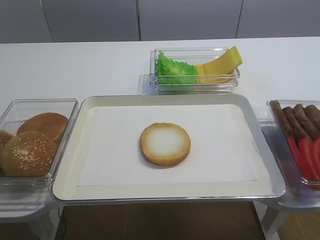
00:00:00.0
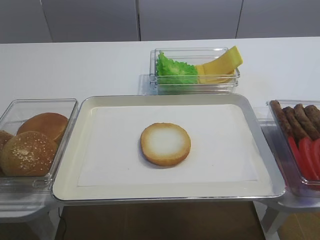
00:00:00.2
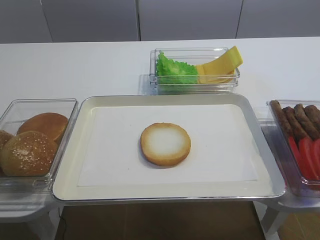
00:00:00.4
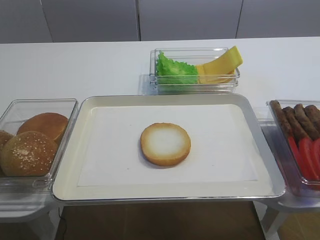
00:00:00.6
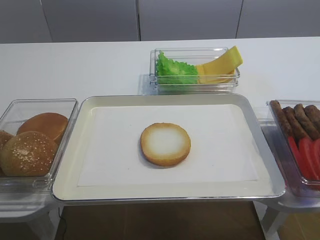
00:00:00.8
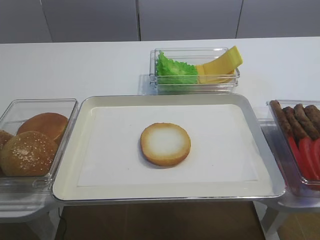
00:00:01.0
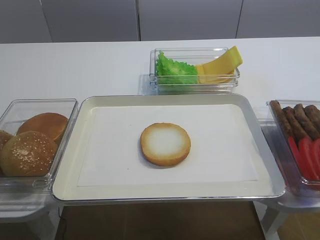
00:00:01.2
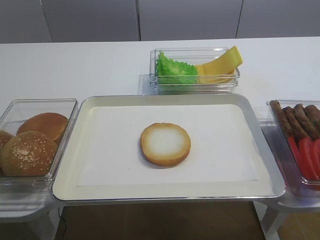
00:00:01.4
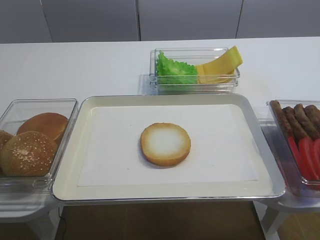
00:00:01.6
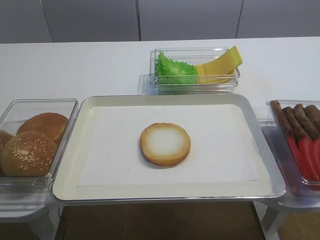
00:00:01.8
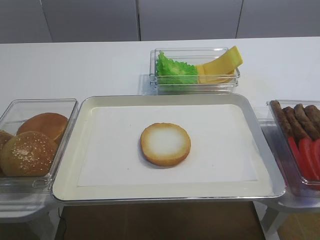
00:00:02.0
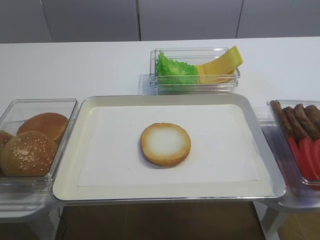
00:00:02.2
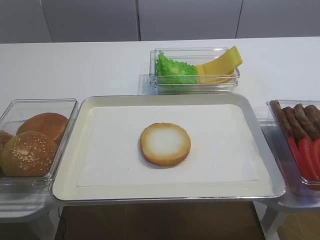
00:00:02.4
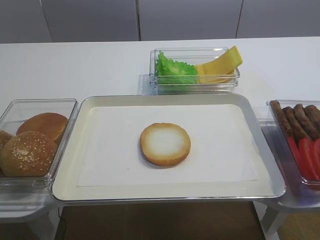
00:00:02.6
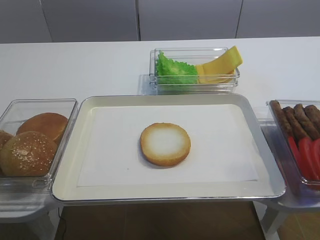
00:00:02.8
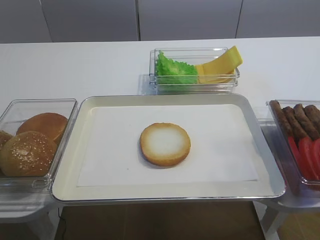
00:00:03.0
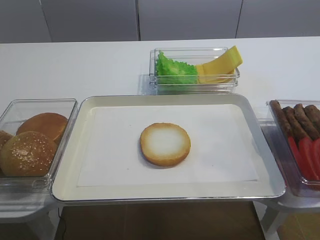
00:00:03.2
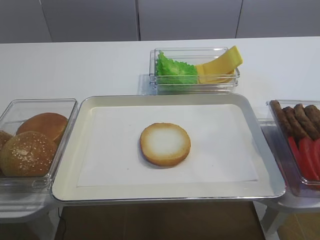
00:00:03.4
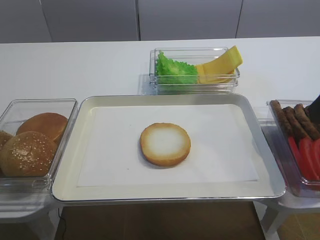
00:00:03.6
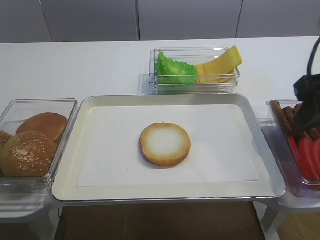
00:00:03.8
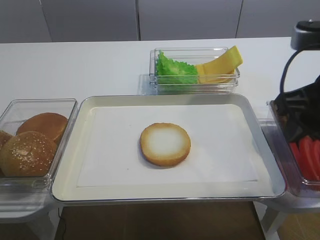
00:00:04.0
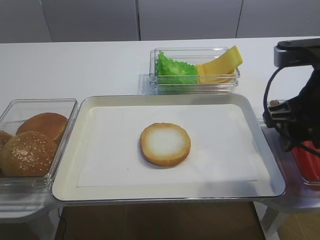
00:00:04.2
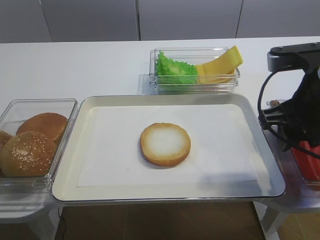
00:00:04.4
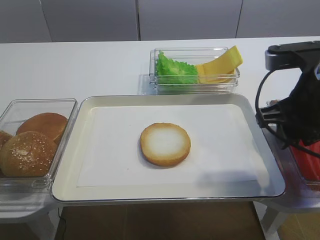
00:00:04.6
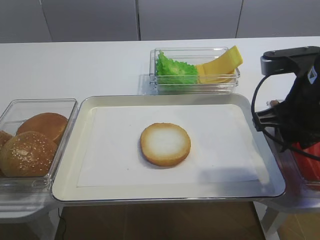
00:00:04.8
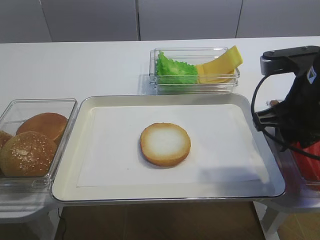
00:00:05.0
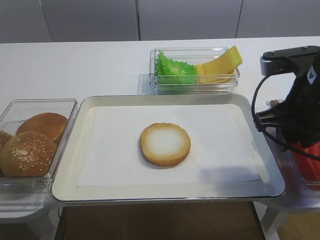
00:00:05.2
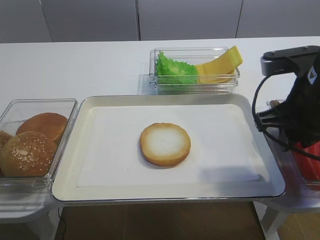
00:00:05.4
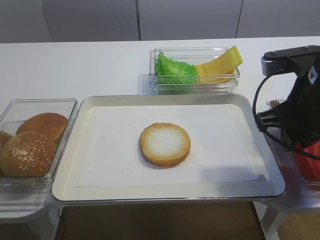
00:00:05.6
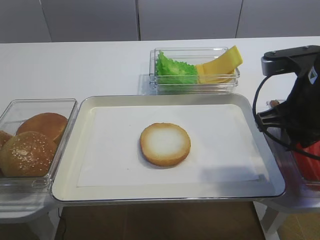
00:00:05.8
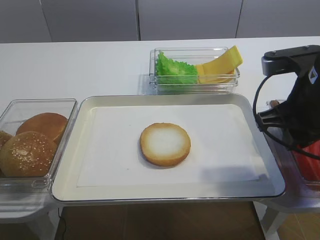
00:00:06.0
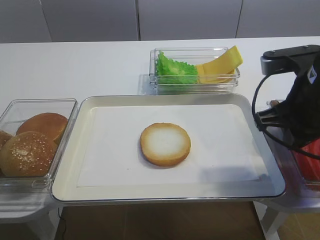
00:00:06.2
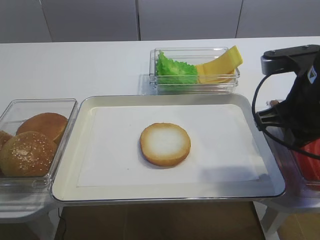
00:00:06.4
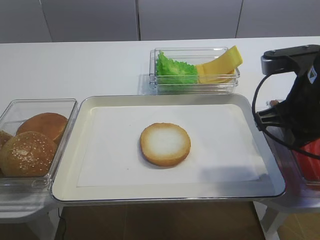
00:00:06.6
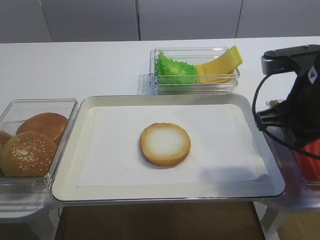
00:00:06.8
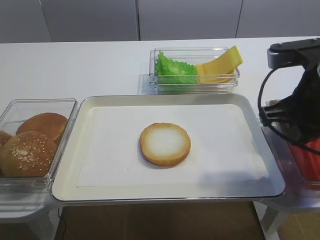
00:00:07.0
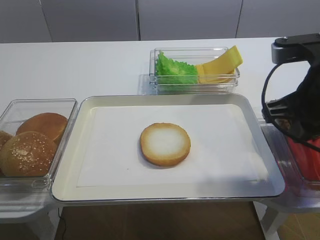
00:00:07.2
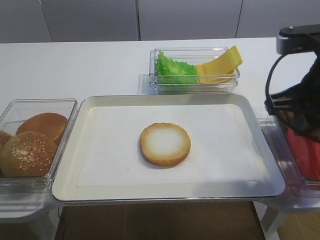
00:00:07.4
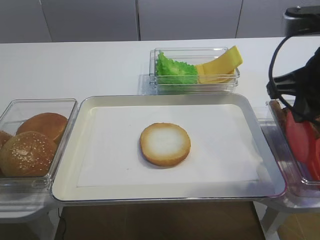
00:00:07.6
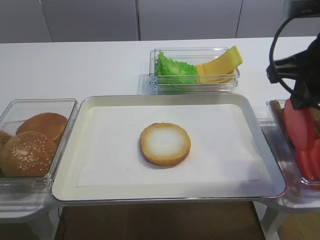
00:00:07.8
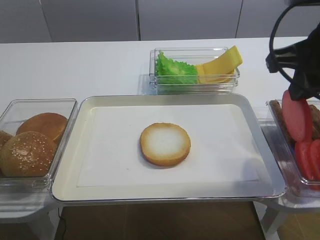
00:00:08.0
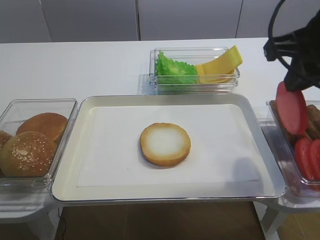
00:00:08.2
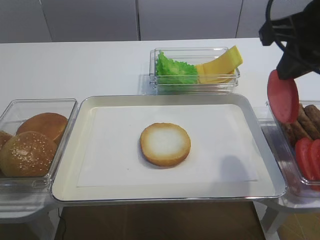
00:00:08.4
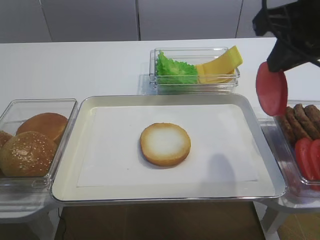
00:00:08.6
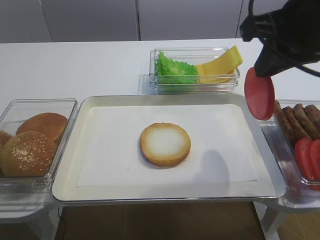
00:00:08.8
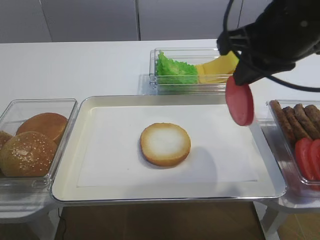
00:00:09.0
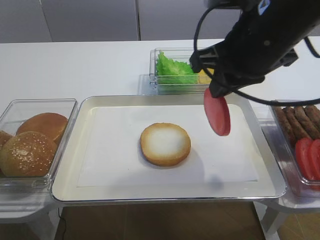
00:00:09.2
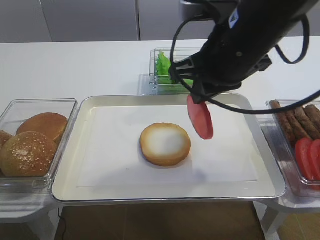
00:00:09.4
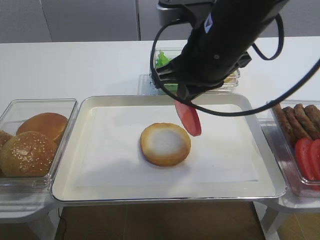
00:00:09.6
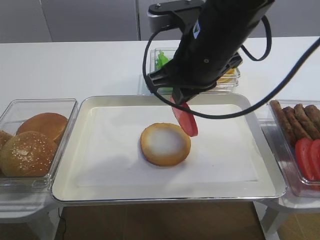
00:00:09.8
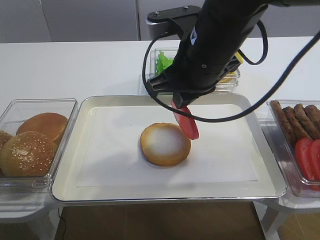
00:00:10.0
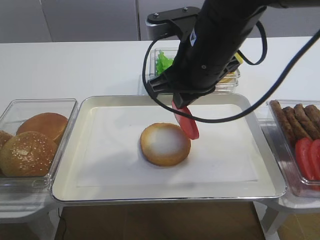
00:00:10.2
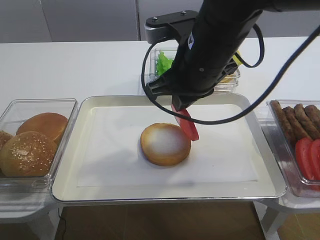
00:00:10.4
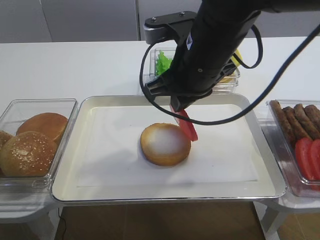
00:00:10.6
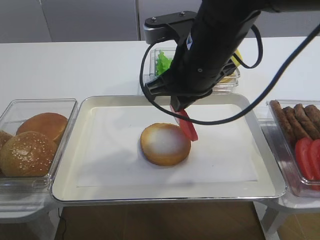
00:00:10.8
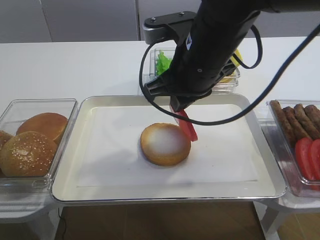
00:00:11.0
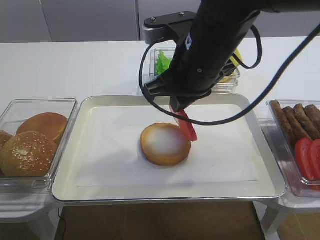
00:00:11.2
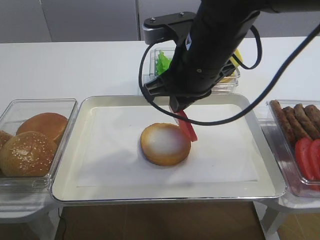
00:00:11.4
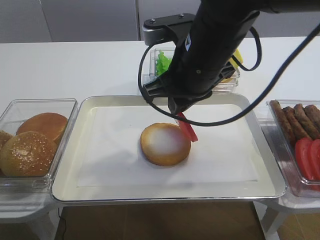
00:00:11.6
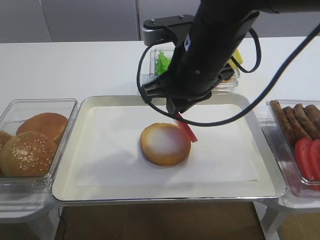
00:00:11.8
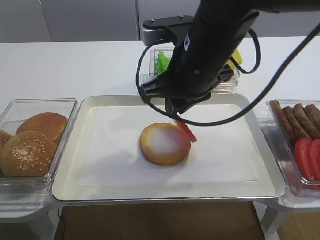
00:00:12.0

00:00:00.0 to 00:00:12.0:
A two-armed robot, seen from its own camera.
Step, 00:00:00.0 to 00:00:07.6: Pick up the tomato slice with the right gripper.
00:00:03.0 to 00:00:04.4: The right gripper travels forward, downward and to the left by about 20 cm.
00:00:04.4 to 00:00:06.0: The right gripper closes.
00:00:06.0 to 00:00:07.6: The right gripper moves upward, some 5 cm.
00:00:07.6 to 00:00:09.0: The right gripper travels to the left by some 5 cm.
00:00:09.0 to 00:00:10.4: The right gripper shifts roughly 10 cm to the left and downward.
00:00:10.4 to 00:00:12.0: The two grippers keep their place.

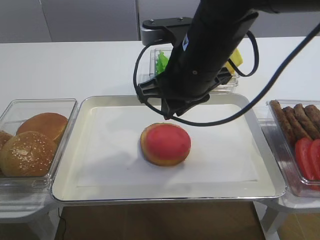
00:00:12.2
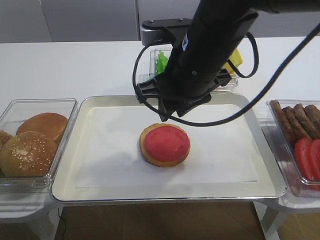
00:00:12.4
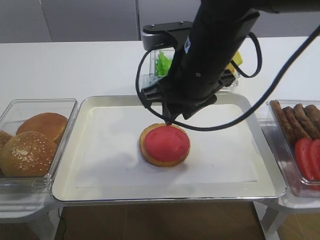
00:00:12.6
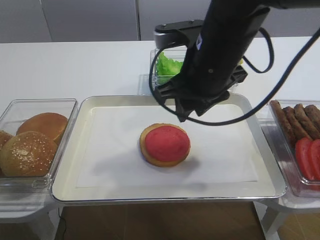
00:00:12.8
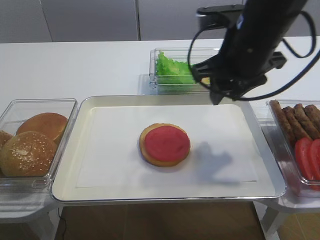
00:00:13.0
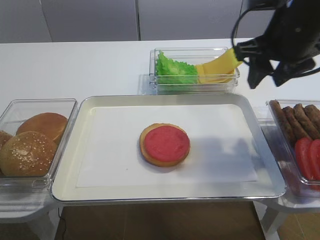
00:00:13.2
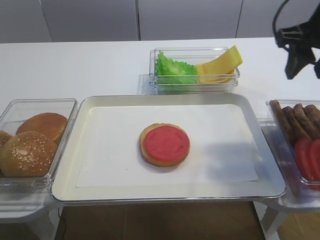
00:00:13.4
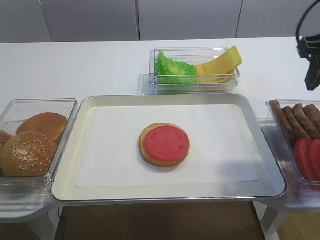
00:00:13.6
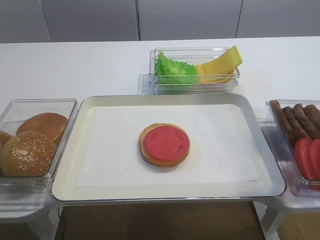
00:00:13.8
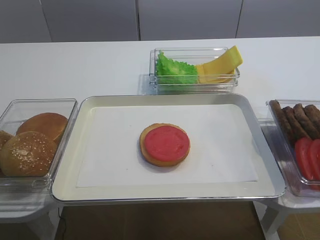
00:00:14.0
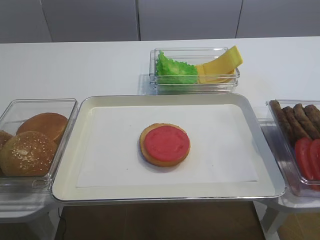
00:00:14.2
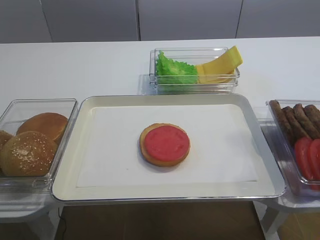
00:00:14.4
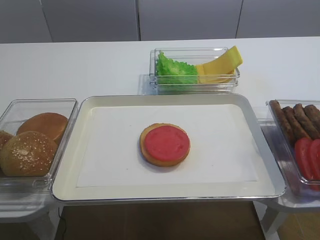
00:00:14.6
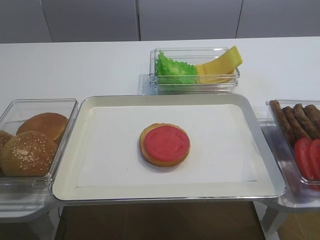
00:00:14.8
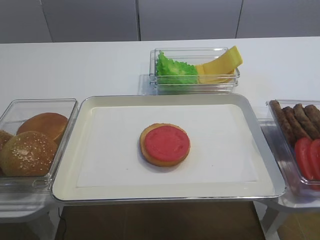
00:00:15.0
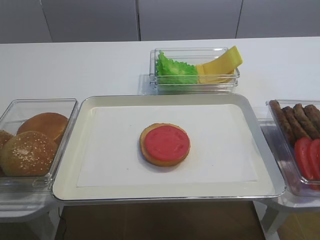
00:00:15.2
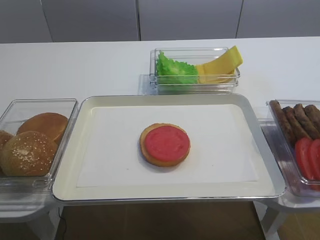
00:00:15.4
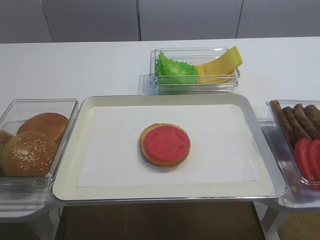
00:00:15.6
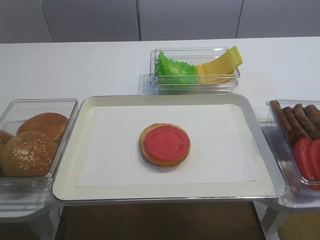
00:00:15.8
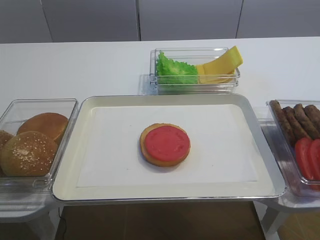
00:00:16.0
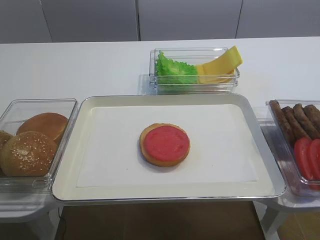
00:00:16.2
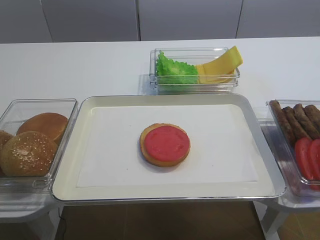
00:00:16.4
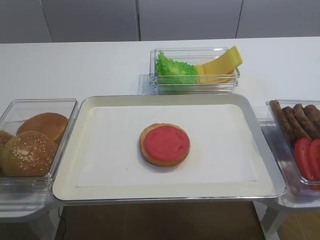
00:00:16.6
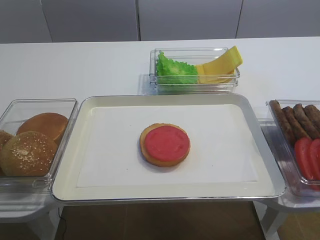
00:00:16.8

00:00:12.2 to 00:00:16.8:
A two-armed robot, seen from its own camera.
00:00:12.2 to 00:00:13.8: The right gripper is displaced to the right by about 20 cm, and opens up.
00:00:13.8 to 00:00:15.2: The right gripper goes about 25 cm backward.
00:00:15.2 to 00:00:16.8: Neither gripper changes place.

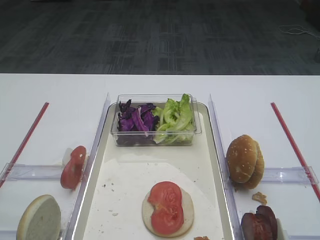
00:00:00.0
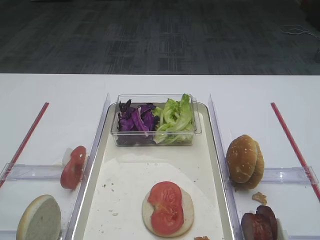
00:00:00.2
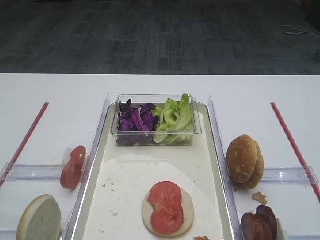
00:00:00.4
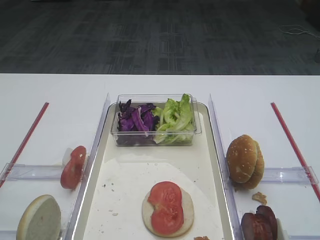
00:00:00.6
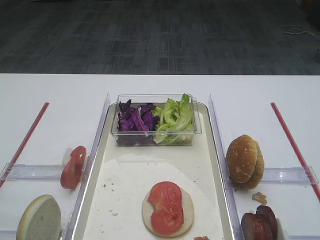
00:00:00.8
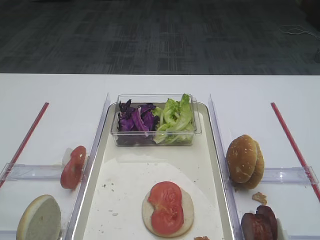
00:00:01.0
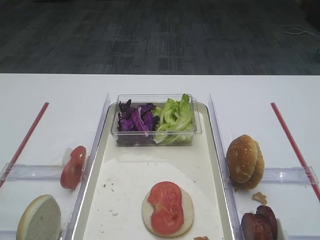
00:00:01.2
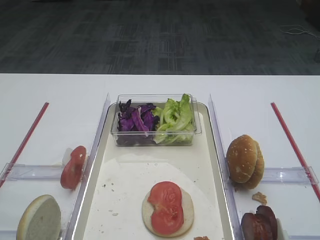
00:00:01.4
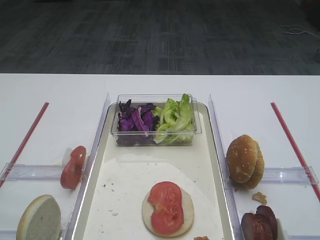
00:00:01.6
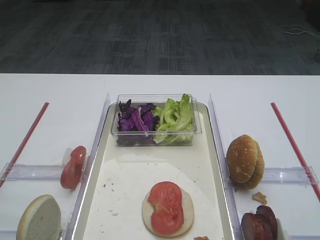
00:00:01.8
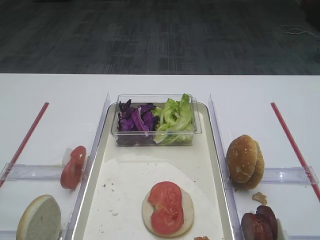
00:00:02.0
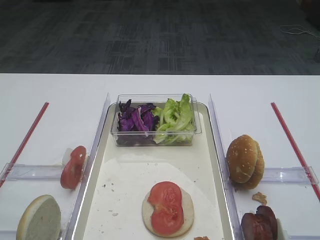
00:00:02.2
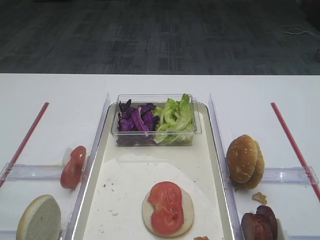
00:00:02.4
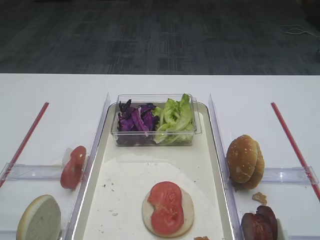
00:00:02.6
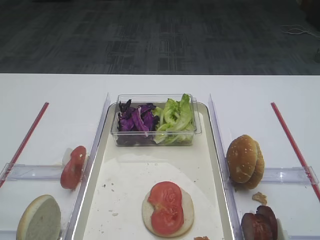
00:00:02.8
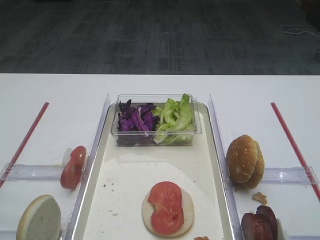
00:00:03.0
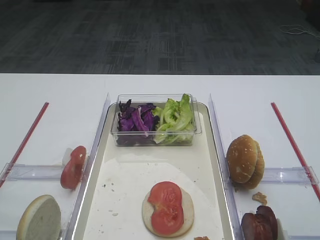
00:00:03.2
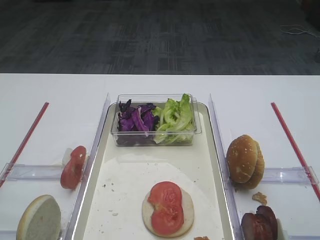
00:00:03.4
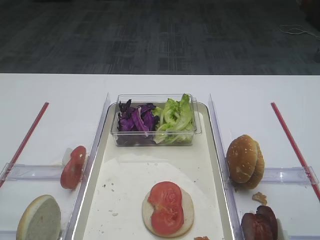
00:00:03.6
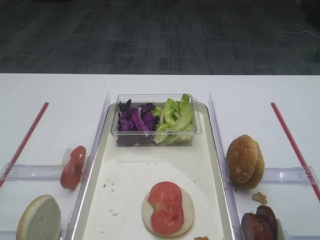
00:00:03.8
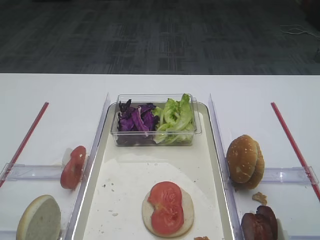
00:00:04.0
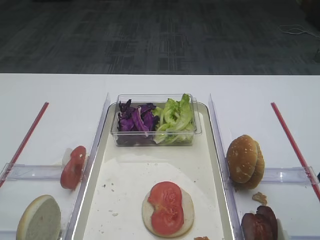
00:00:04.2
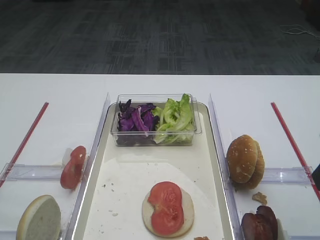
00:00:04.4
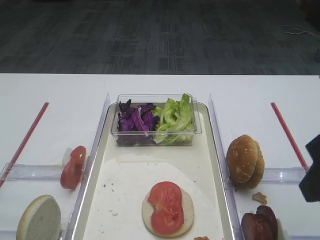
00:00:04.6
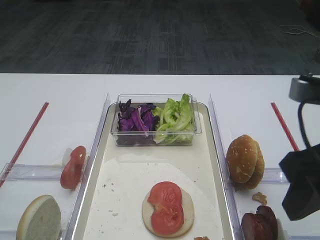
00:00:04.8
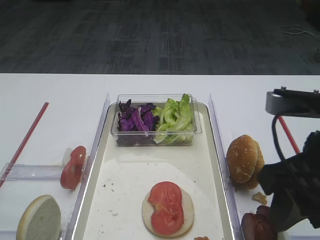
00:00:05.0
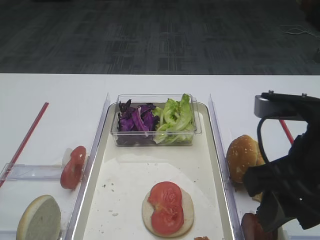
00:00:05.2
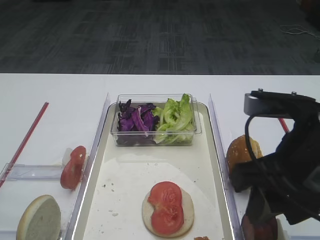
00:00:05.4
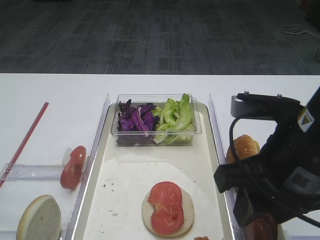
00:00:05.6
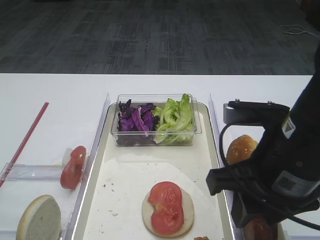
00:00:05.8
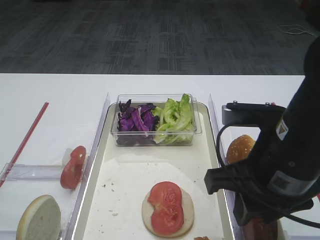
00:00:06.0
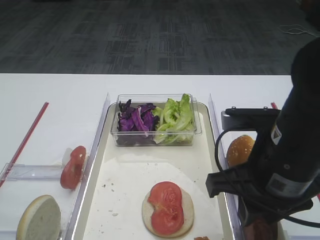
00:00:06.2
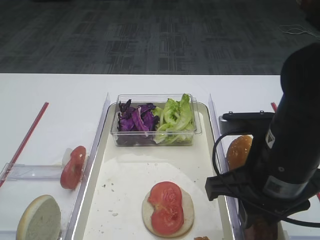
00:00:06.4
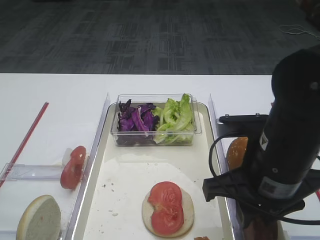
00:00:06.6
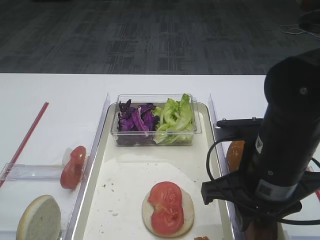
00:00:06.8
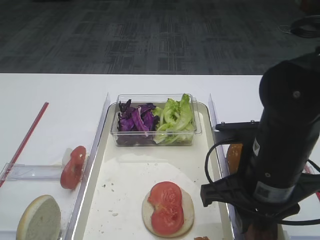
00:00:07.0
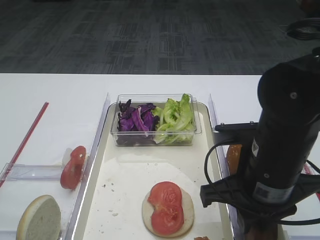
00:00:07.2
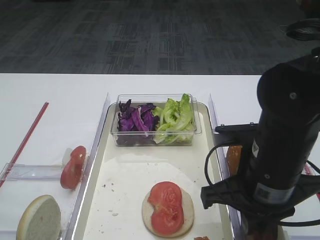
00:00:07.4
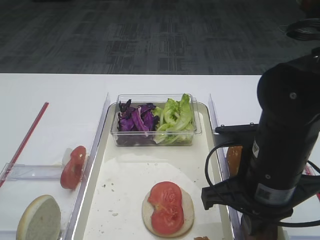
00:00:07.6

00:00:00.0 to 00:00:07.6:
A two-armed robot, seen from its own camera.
00:00:03.0 to 00:00:04.6: The right gripper moves forward, about 10 cm.
00:00:04.6 to 00:00:06.0: The right gripper shifts about 10 cm to the left and downward.
00:00:06.0 to 00:00:07.6: The right gripper closes its fingers.
